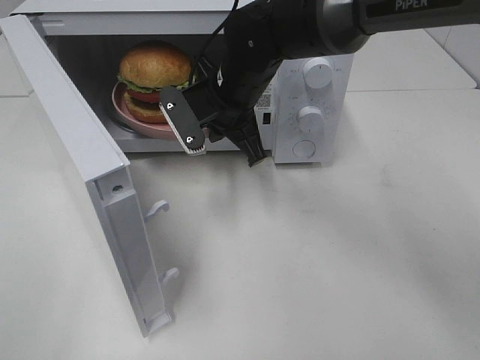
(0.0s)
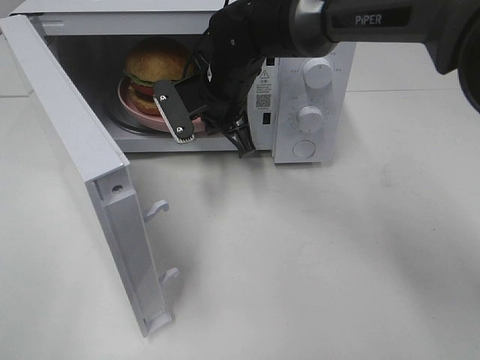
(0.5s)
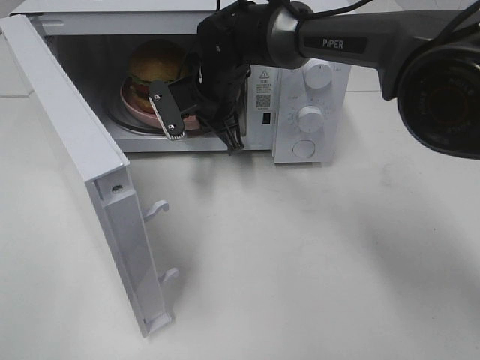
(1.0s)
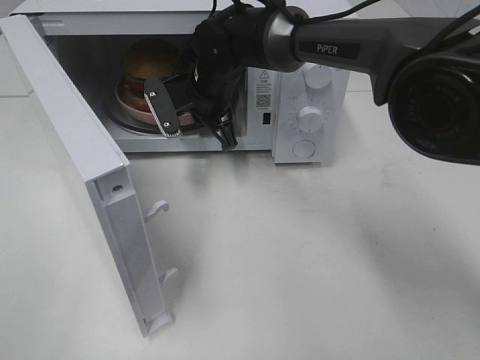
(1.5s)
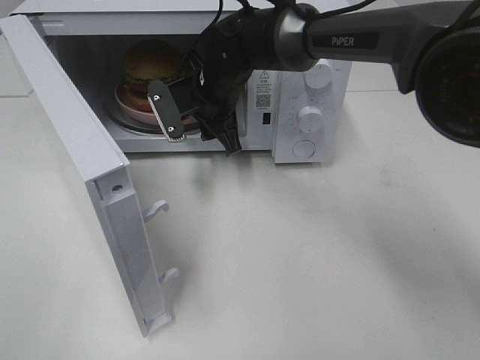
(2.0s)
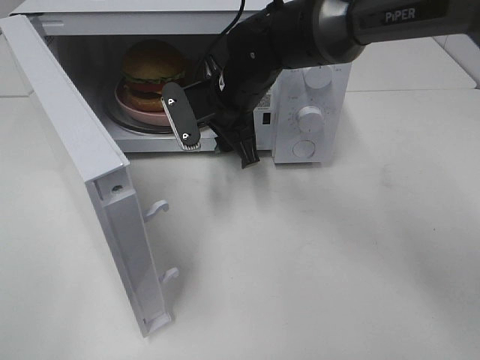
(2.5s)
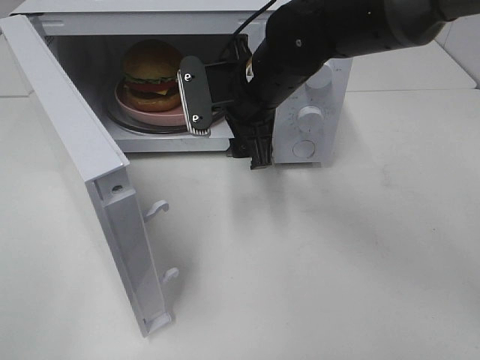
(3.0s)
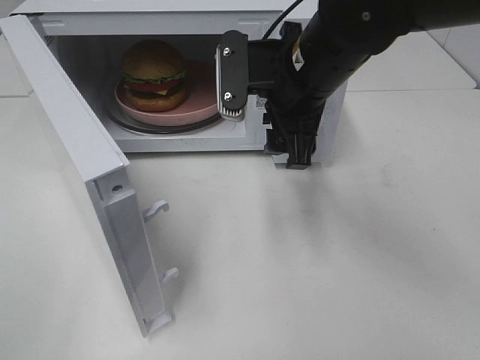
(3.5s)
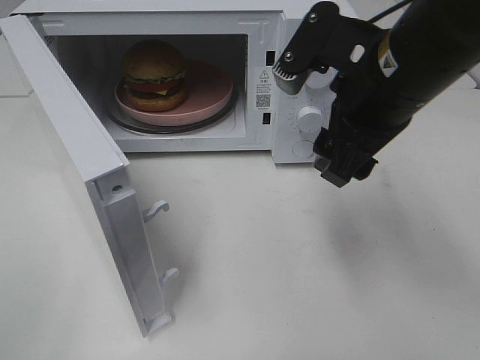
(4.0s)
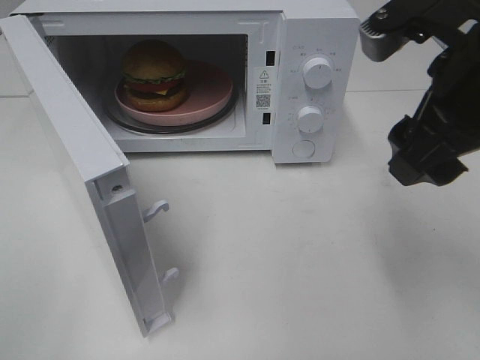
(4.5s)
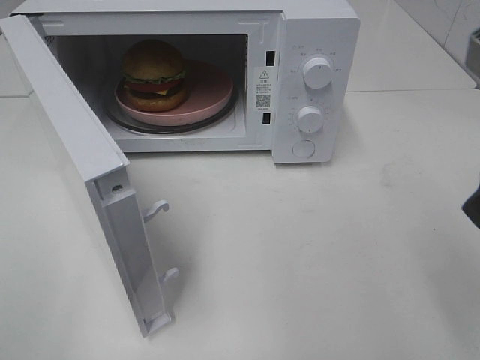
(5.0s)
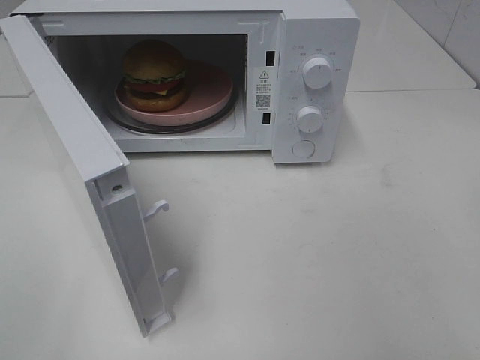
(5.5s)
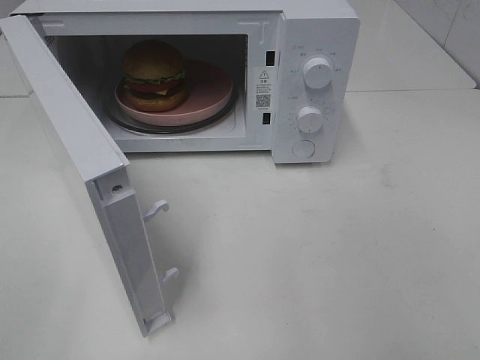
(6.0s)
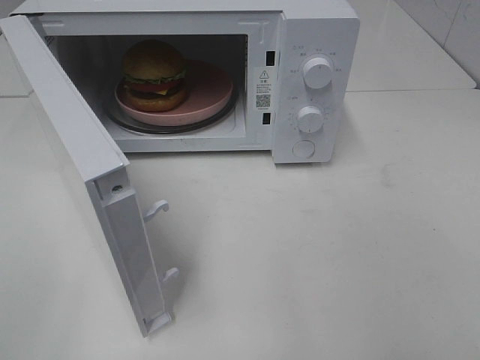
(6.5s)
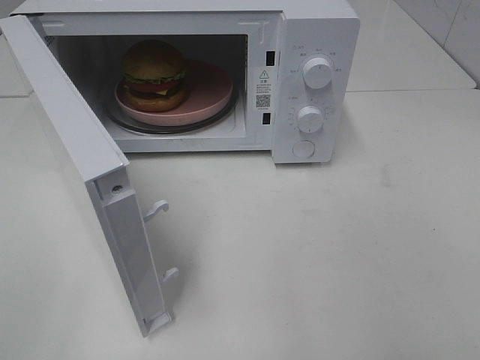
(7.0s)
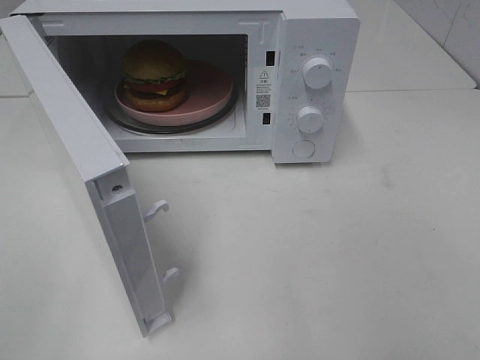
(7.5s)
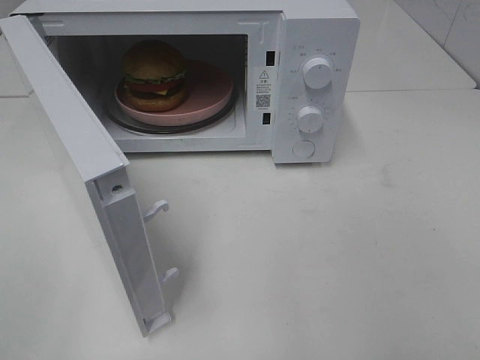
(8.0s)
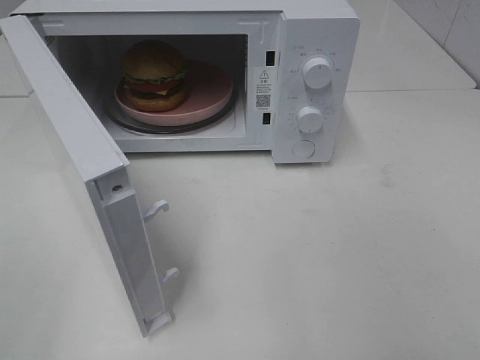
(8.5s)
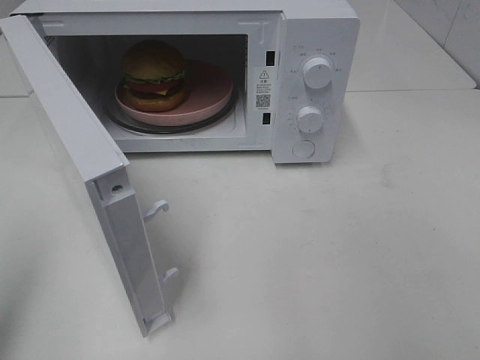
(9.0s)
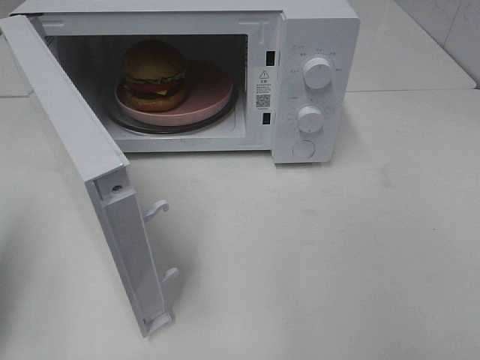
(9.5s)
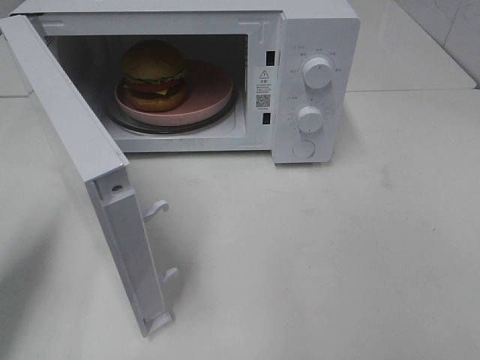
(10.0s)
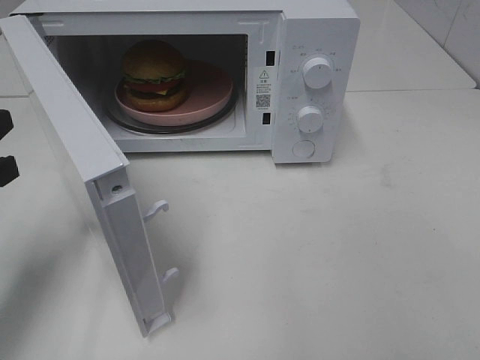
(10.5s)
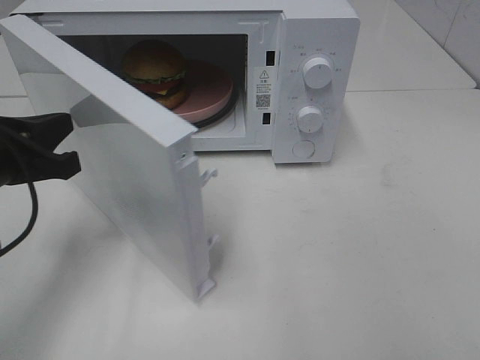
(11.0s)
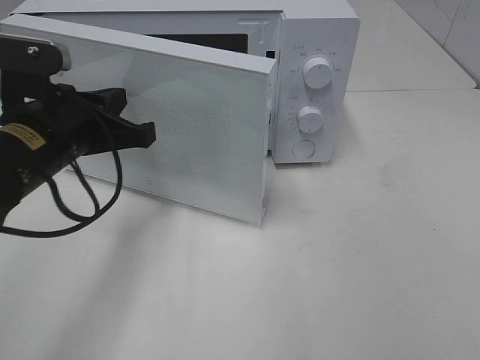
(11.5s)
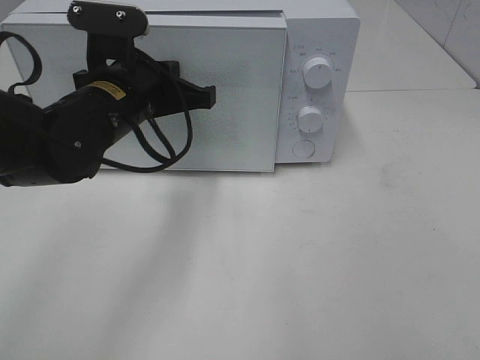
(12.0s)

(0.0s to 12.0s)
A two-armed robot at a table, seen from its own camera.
Task of the whole recording: Heat the burger.
Step, 0.0s - 2.0s: Right hand: place the plate in the microwave.
0.0s - 2.0s: The right gripper ends up approximately 5 cm from where it was, and opens up.
2.0s - 4.0s: The right gripper shifts approximately 25 cm backward, to the right and upward.
4.0s - 6.0s: The right gripper moves backward and to the right, some 30 cm.
8.0s - 10.0s: The left gripper shifts roughly 20 cm forward, and closes up.
10.0s - 12.0s: The left gripper goes about 25 cm to the right and forward.

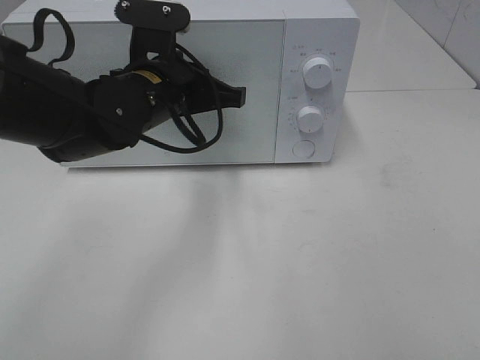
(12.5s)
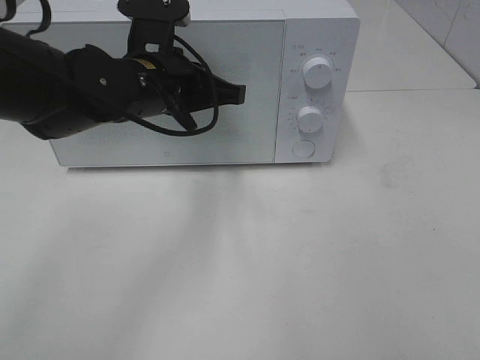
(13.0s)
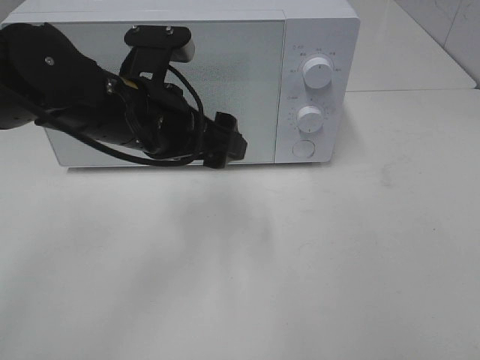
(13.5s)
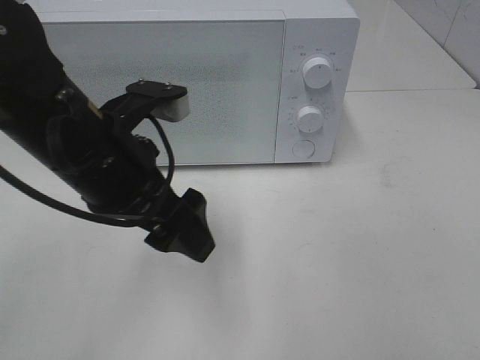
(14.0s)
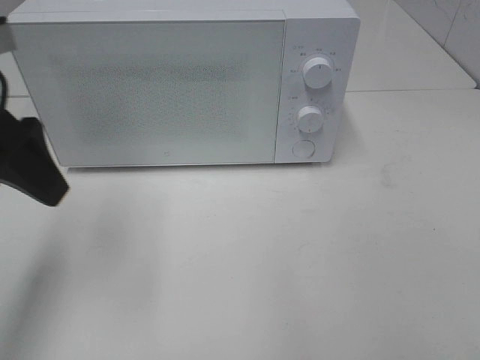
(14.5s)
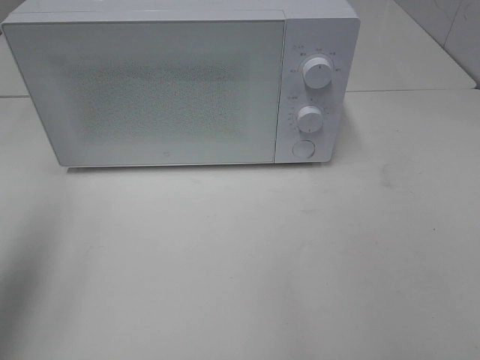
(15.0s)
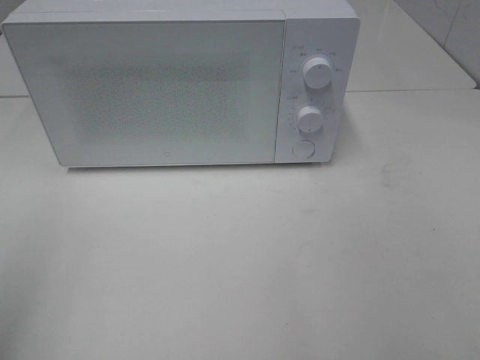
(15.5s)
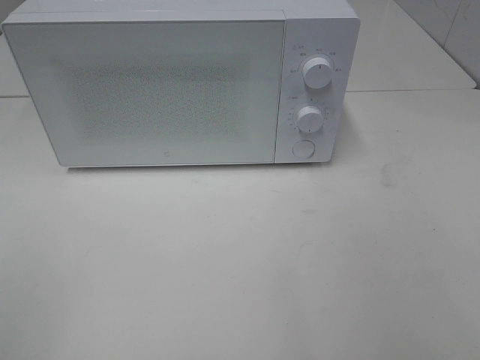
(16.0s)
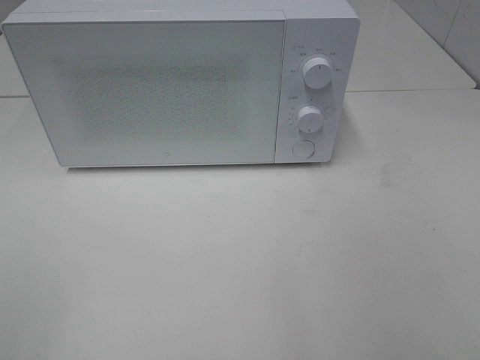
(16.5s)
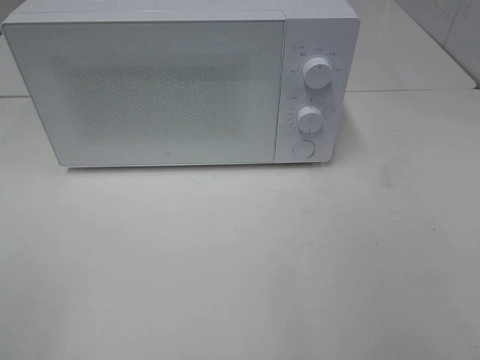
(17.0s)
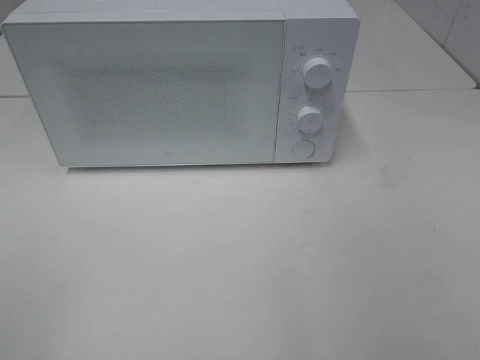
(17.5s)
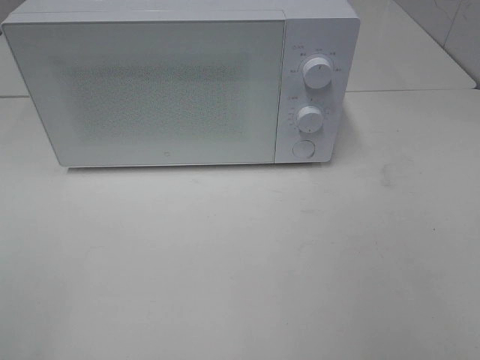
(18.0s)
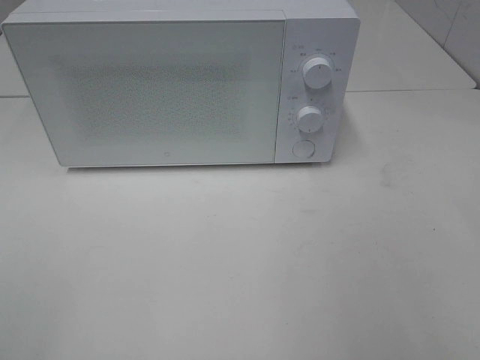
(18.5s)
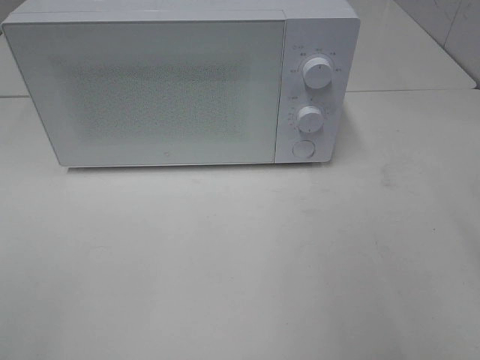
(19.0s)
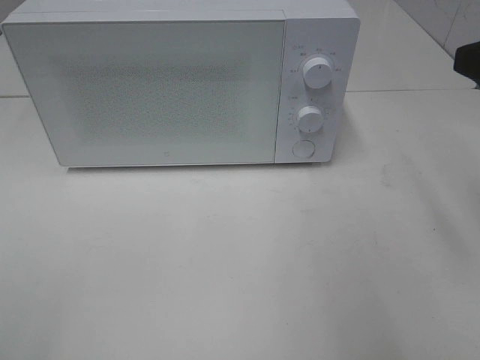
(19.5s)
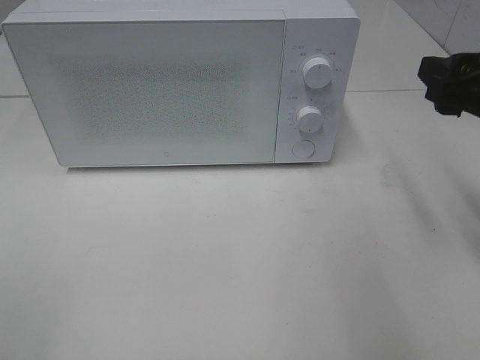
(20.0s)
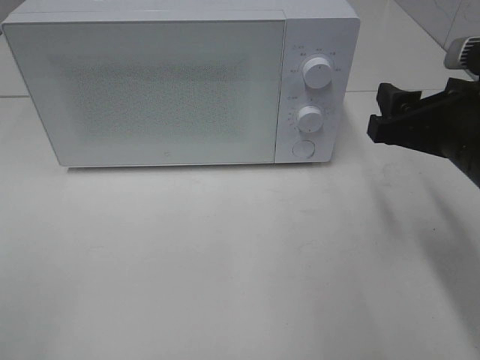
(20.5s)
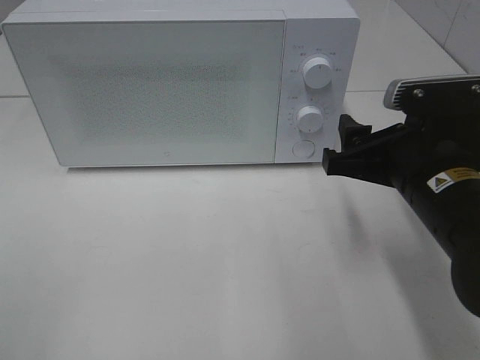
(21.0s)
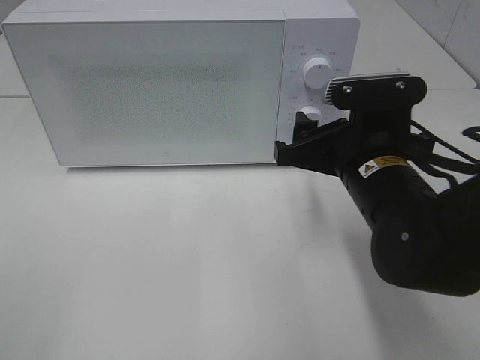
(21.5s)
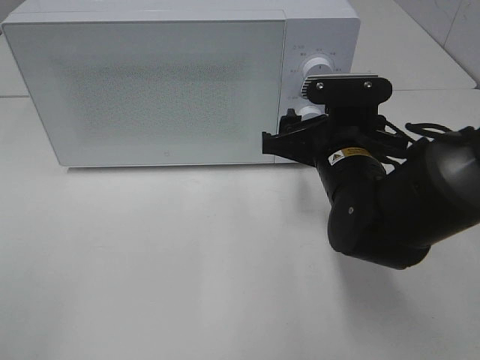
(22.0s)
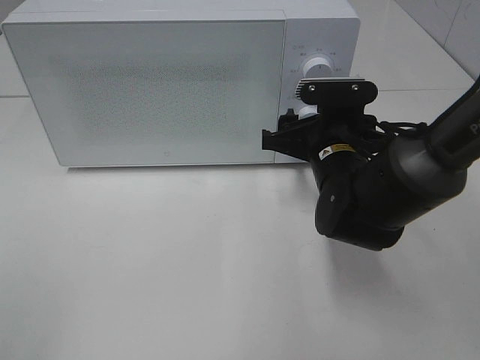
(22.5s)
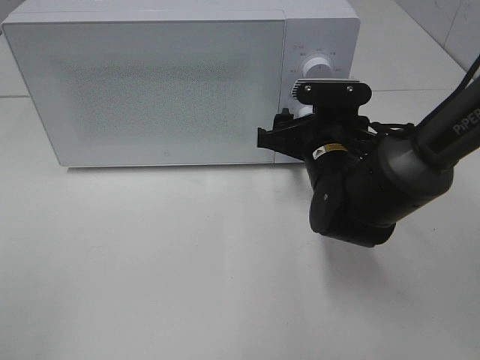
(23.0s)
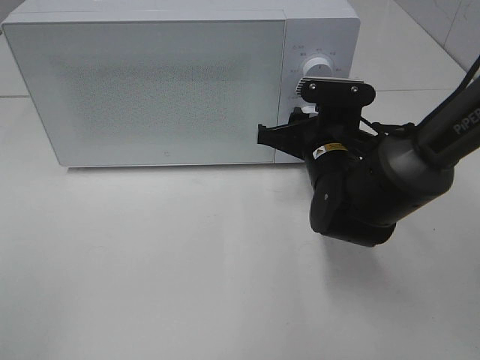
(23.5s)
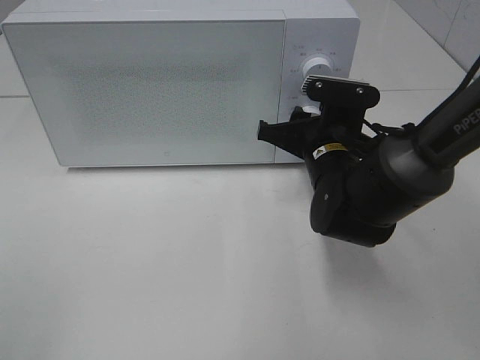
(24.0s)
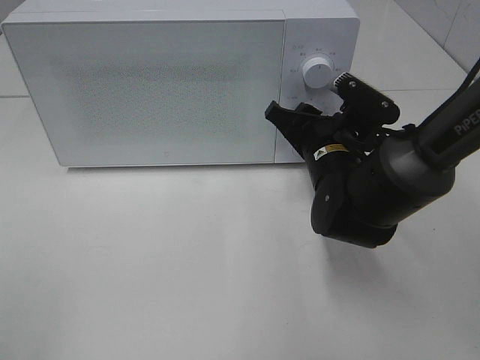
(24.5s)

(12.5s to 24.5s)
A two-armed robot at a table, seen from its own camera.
Task of the whole recording: Heat the burger.
12.5s - 14.5s: The left gripper goes approximately 20 cm to the left, backward and upward, and opens its fingers.
14.5s - 16.5s: The left gripper heads backward, covering roughly 25 cm.
18.5s - 20.5s: The right gripper is displaced forward, downward and to the left by roughly 20 cm.
20.5s - 22.5s: The right gripper shifts roughly 15 cm forward, to the left and downward.
22.5s - 24.5s: The right gripper closes its fingers.

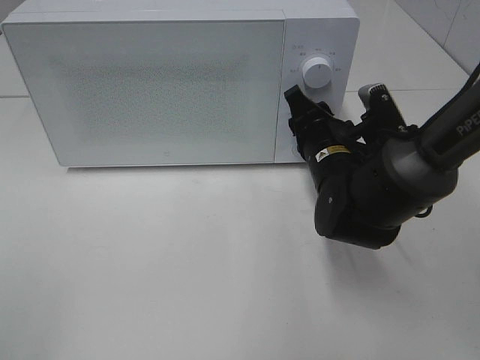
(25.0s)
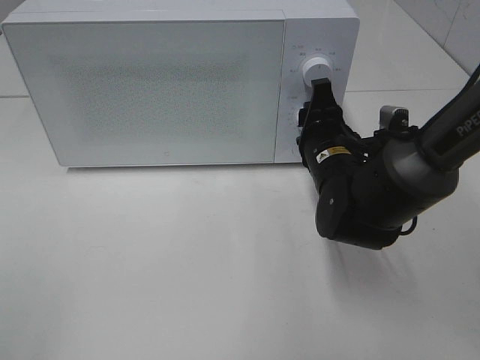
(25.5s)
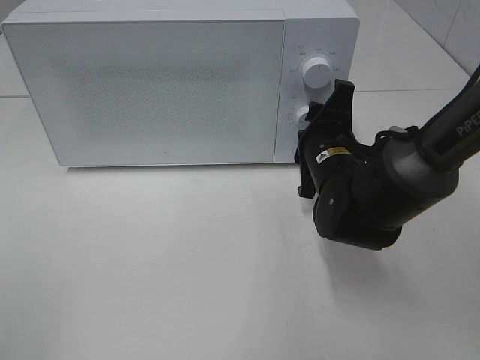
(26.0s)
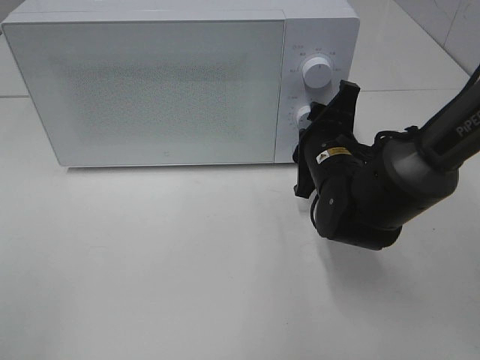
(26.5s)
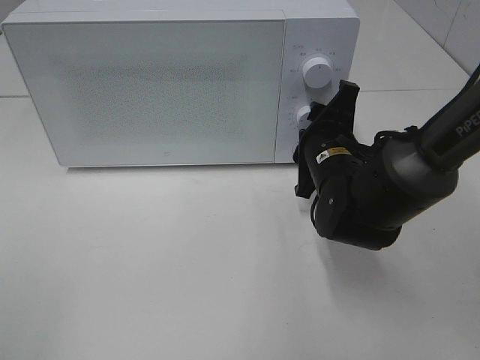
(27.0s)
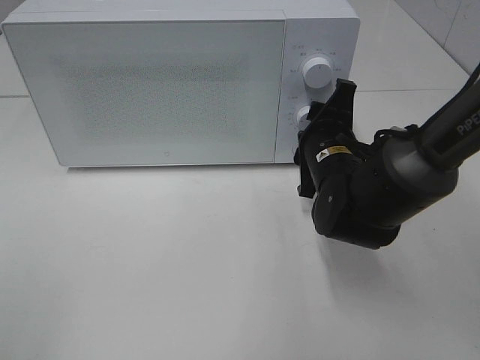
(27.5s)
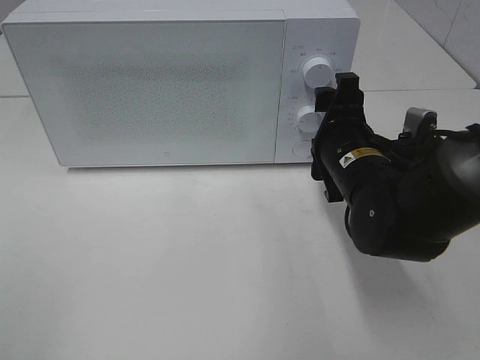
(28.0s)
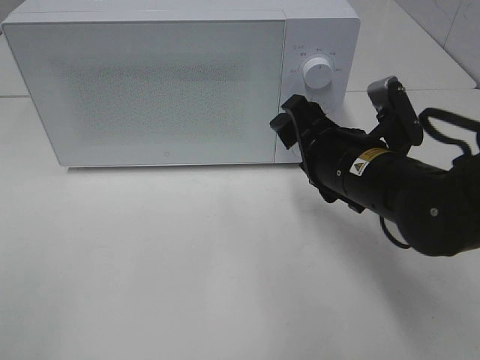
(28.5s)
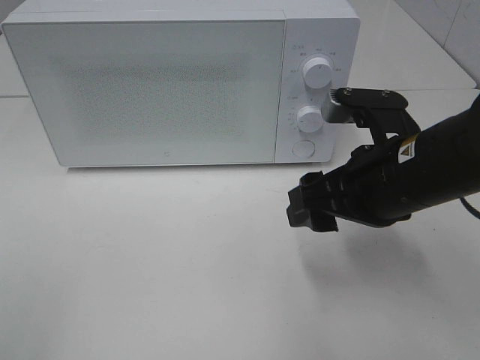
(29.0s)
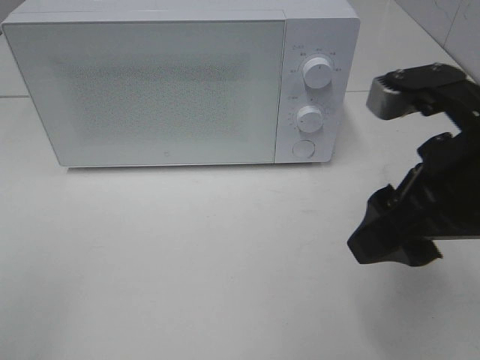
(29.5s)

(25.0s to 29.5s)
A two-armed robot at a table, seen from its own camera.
Task of the whole recording: Heat the burger.
Step, 25.0s - 27.5s: Right hand: twist timer button.
27.0s - 29.5s: The right gripper heads backward and upward, covering about 20 cm.
